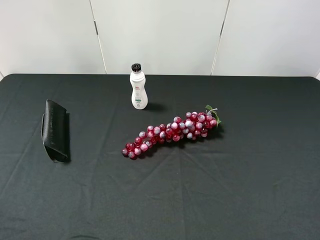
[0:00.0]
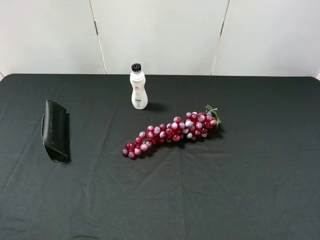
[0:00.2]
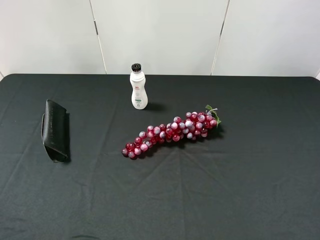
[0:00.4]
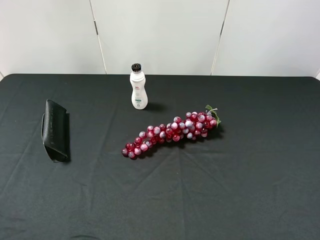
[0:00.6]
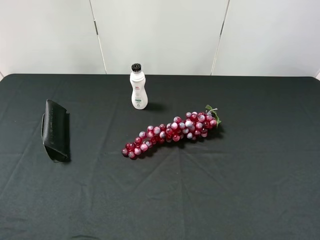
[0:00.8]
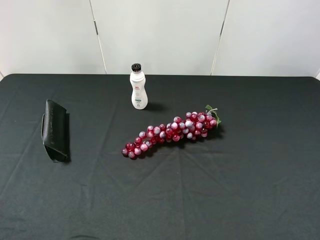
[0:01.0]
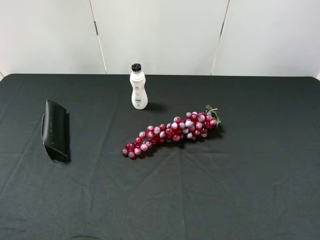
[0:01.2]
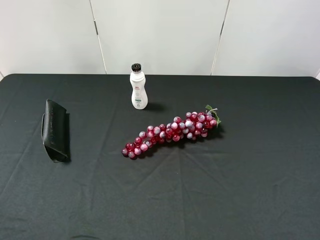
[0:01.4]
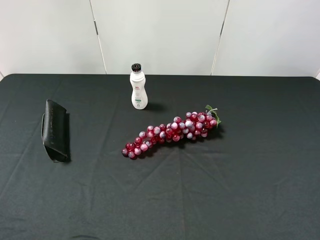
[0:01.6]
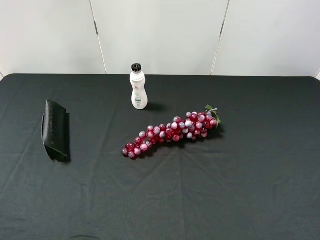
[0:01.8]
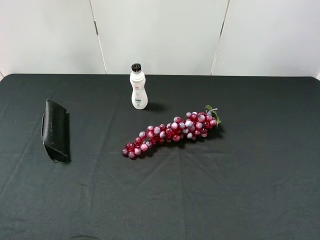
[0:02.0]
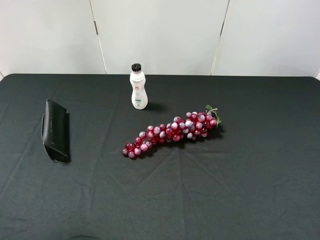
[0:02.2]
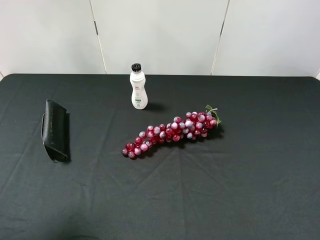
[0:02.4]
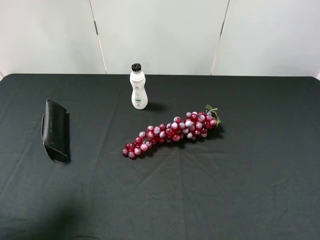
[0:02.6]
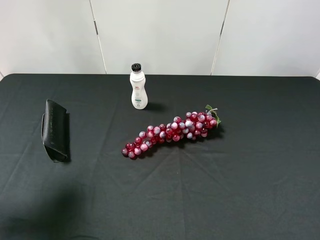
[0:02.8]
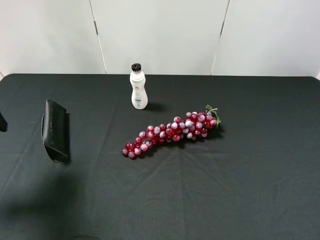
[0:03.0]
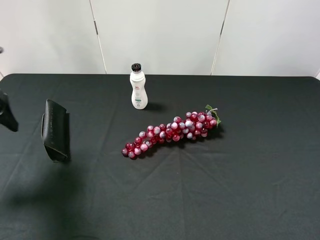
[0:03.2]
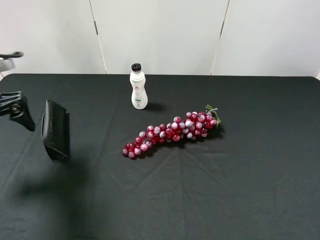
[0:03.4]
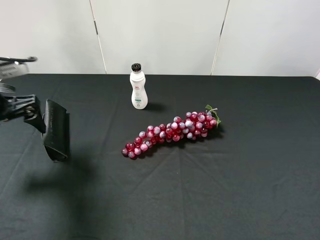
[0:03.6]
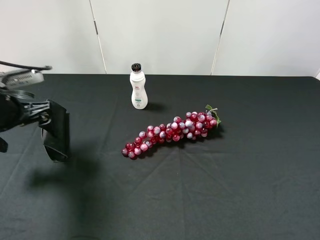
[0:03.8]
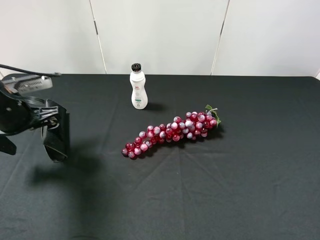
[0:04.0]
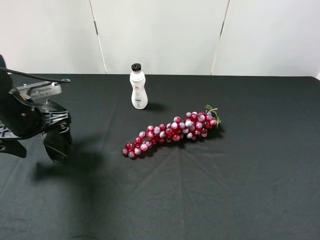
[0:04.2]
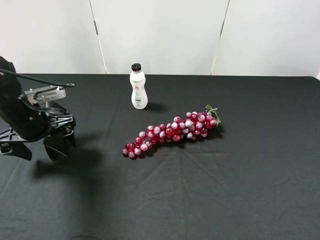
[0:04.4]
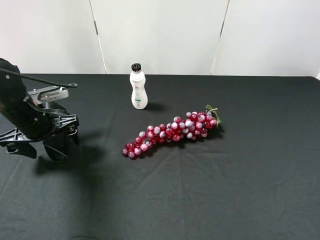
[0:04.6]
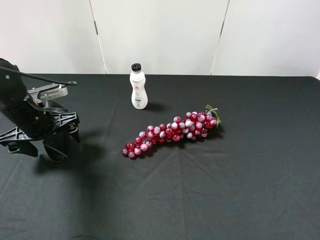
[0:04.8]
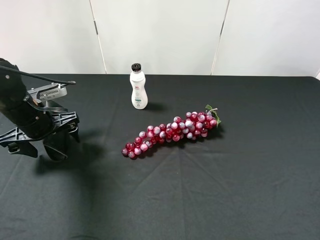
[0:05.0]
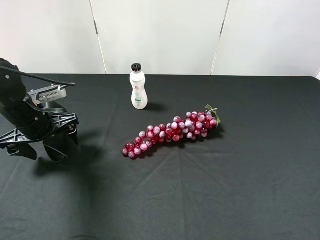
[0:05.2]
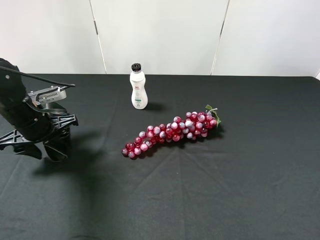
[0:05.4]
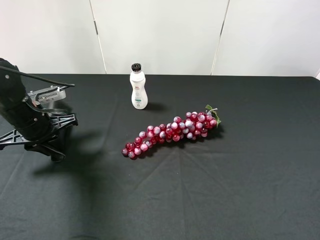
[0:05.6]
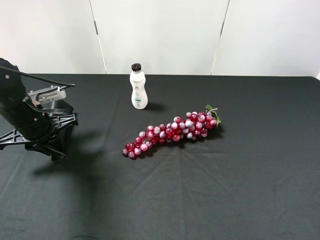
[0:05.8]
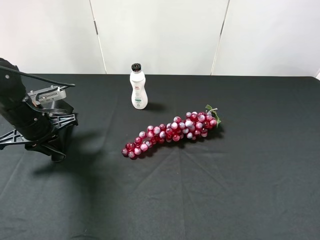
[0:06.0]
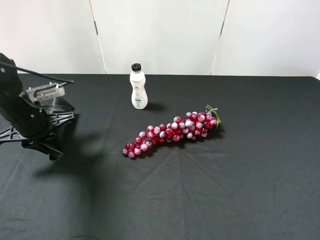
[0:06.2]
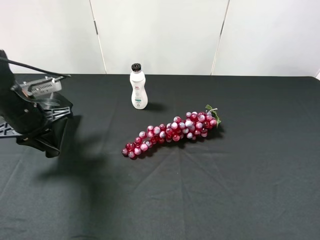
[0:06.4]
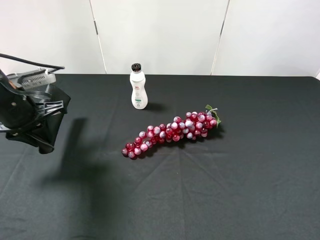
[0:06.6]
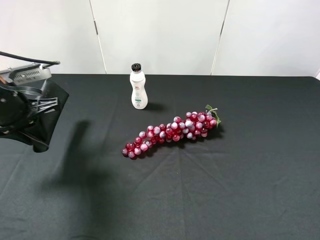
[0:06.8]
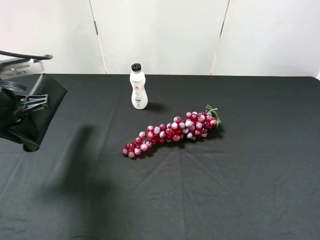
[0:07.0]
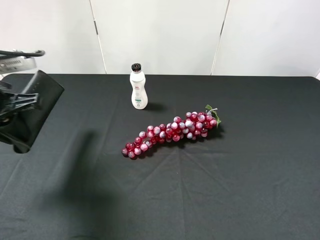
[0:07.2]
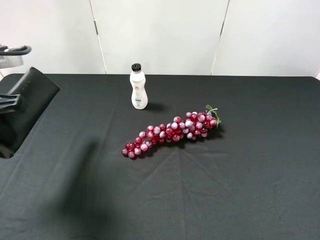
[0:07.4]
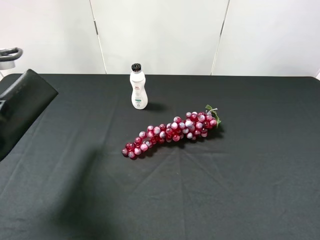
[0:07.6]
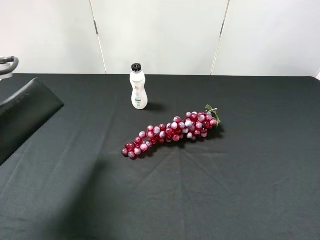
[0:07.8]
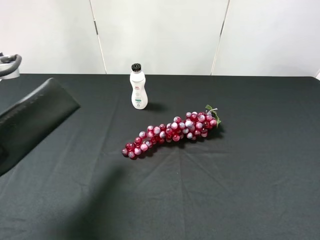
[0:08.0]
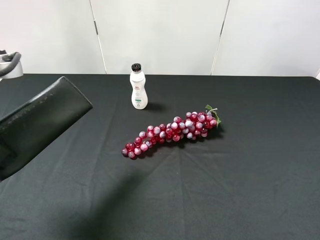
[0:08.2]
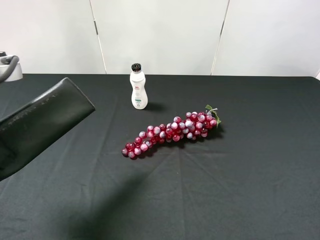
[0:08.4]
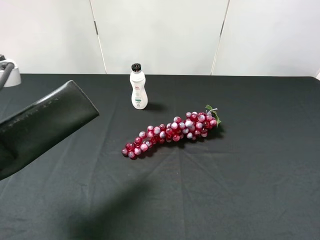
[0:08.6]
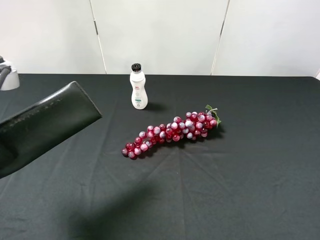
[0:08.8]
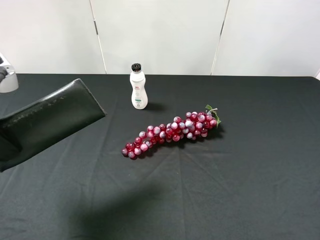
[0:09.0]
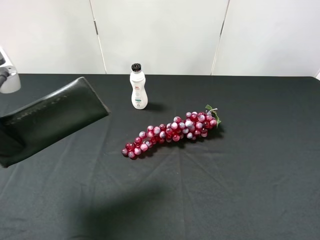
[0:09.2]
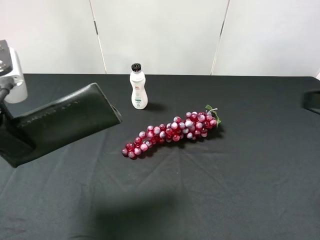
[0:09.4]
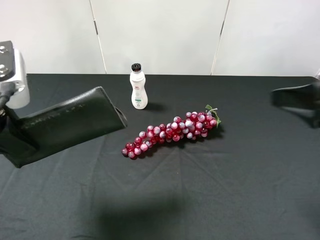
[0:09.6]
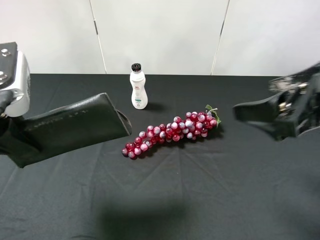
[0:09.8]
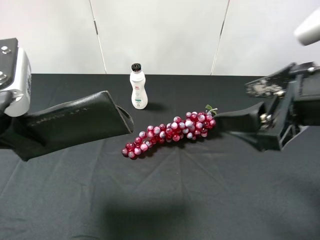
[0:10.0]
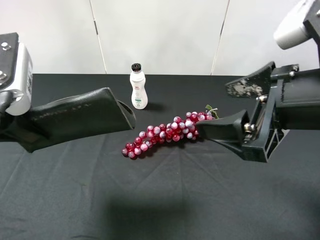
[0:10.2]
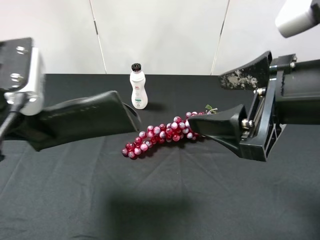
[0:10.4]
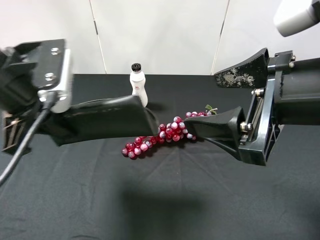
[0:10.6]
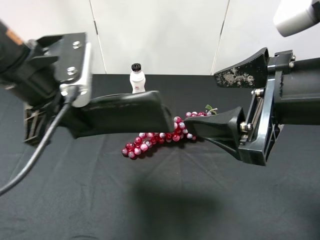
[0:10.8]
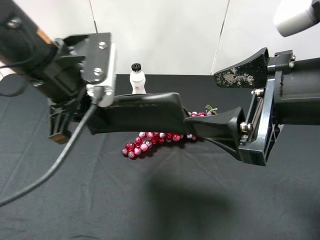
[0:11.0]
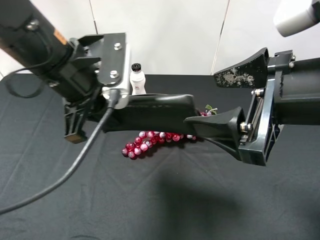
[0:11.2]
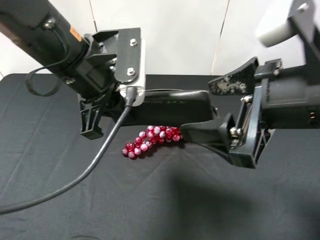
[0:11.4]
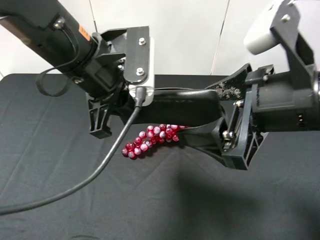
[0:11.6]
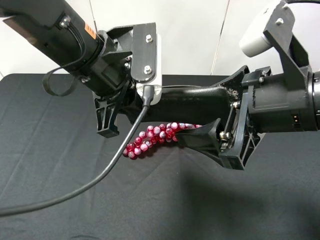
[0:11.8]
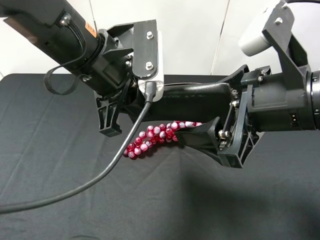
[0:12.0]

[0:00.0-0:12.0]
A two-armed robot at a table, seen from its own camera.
Task of the whole recording: use the left gripper to pick up the item and transfer it from the left gripper to the right gripper.
0:00.0 to 0:01.6: Both grippers stay about where they are.
0:01.6 to 0:03.0: The left gripper is displaced forward by some 20 cm.
0:03.0 to 0:04.4: The left gripper is displaced downward, to the right and forward by roughly 15 cm.
0:04.4 to 0:06.0: The left gripper closes up.
0:06.0 to 0:07.6: The left gripper goes about 20 cm upward and backward.
0:09.0 to 0:10.4: The left gripper changes place by about 5 cm. Meanwhile the right gripper goes some 15 cm to the left and forward.
0:10.4 to 0:12.0: The left gripper heads to the right, covering approximately 15 cm.

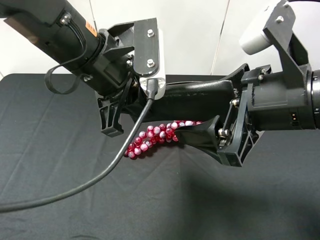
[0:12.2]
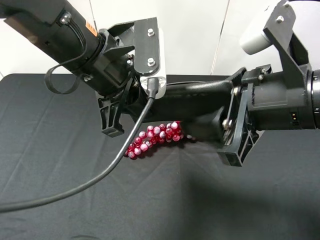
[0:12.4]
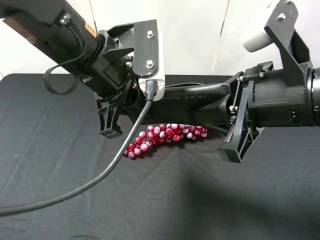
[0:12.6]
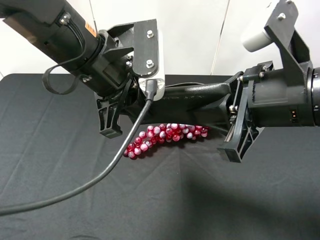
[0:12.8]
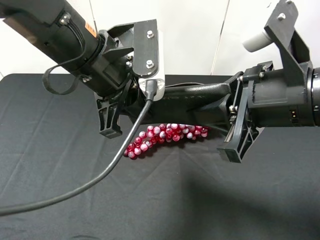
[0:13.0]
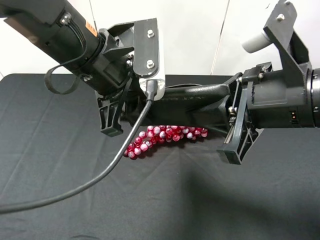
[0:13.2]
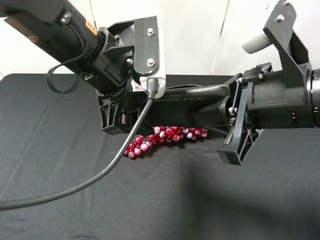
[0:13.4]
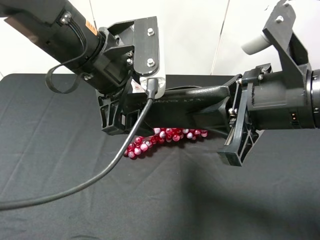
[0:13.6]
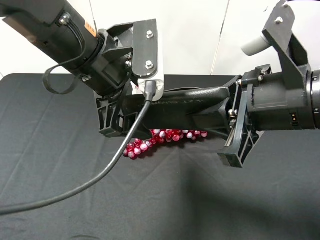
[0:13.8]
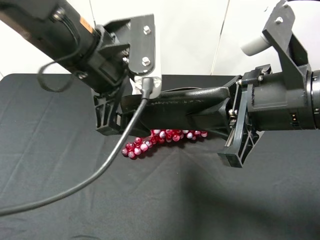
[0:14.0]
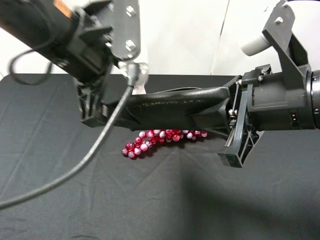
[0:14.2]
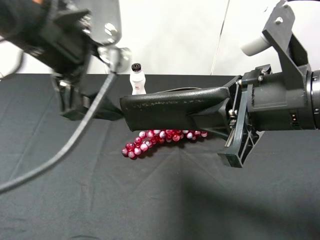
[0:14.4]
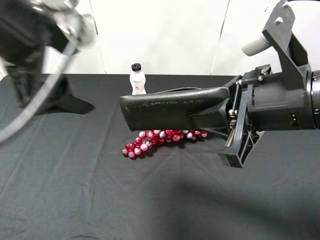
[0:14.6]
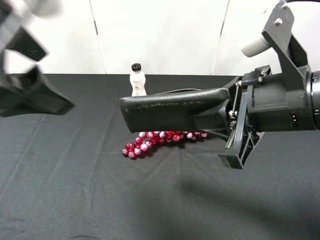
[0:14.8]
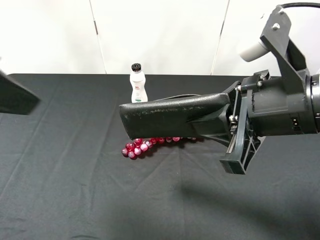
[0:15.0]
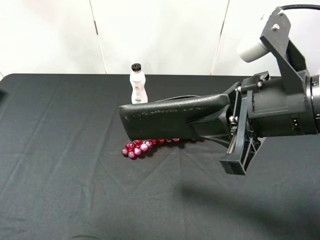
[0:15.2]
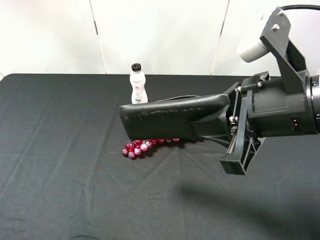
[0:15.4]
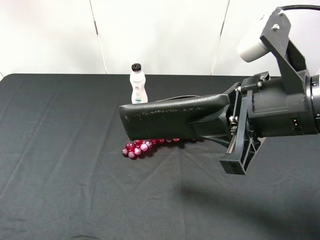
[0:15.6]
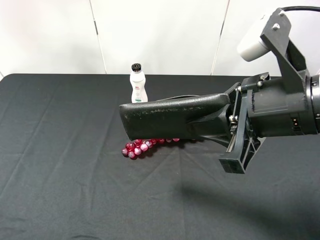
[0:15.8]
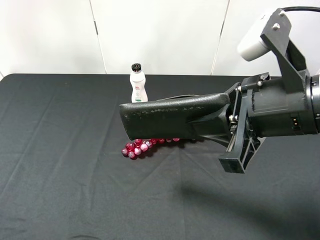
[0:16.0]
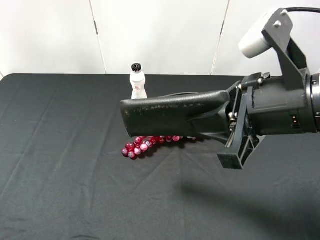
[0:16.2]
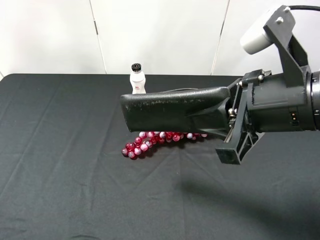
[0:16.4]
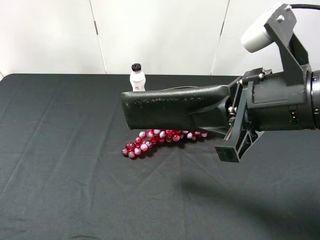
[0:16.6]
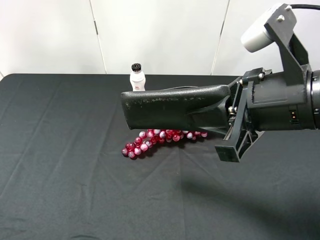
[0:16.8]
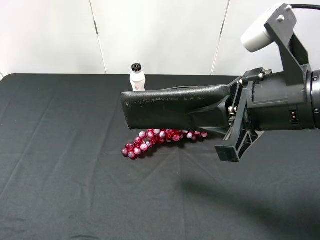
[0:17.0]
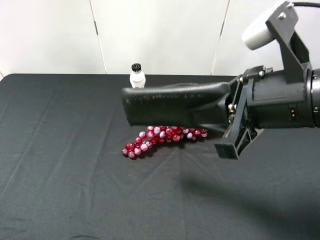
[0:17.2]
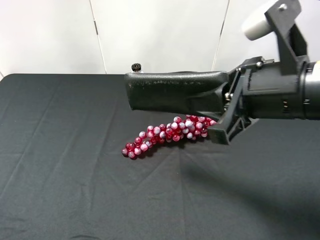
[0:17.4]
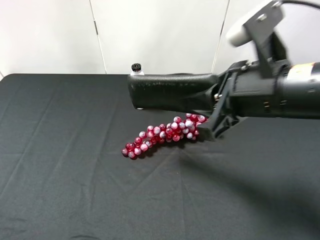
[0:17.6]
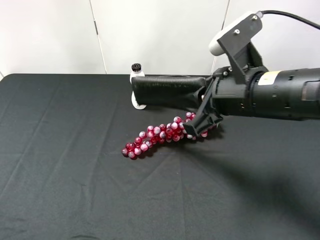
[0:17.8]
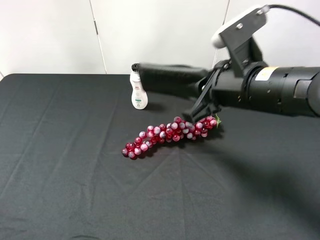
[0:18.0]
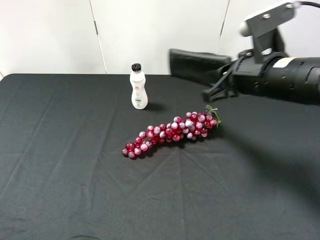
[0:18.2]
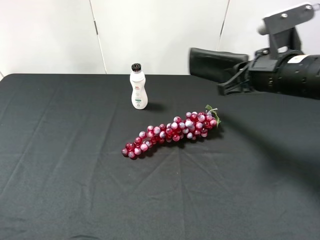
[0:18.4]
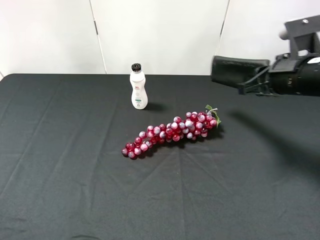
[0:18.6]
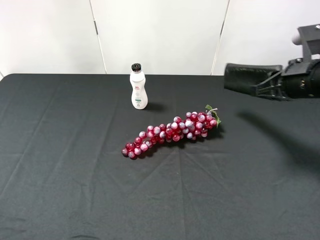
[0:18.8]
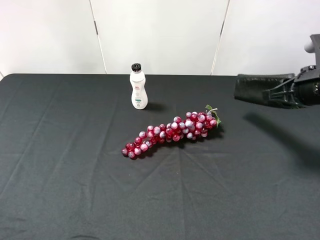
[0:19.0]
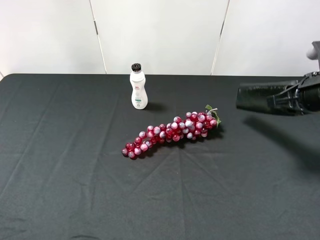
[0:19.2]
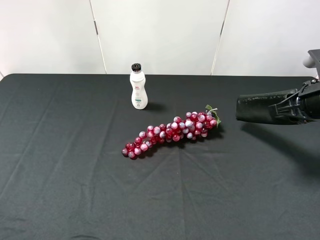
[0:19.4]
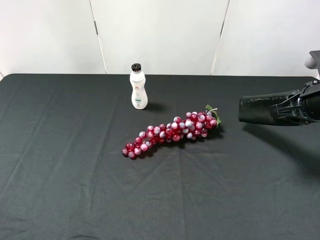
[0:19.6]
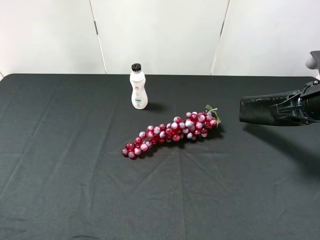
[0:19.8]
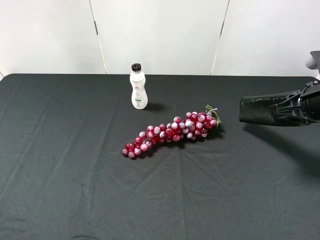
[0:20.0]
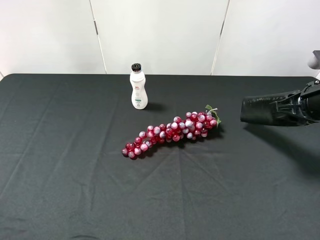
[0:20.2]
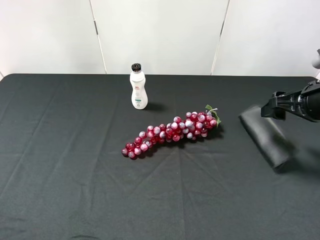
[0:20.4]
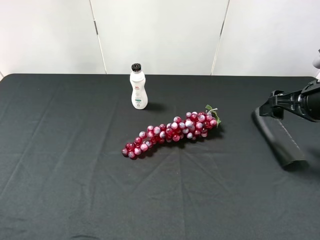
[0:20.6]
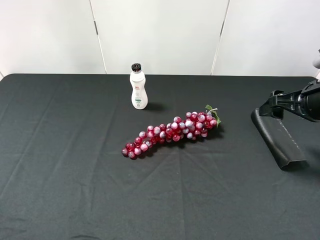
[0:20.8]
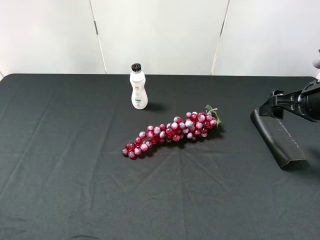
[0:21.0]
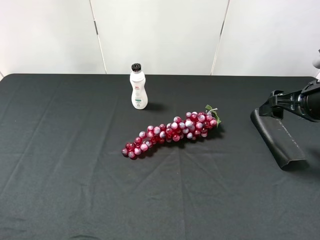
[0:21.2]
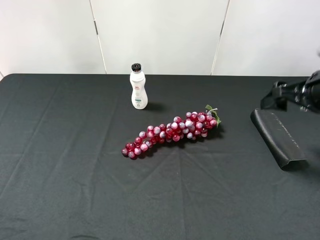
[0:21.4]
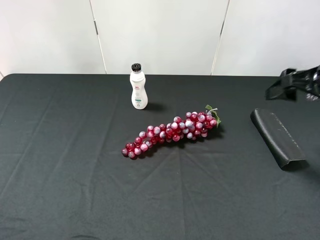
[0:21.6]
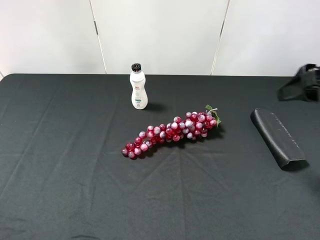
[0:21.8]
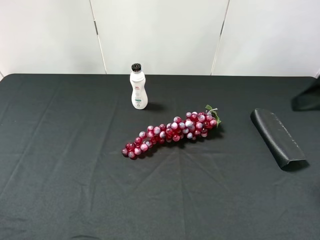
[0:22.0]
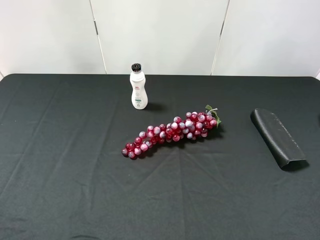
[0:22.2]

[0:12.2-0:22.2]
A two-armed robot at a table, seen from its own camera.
Task of the whole recording: use the left gripper to pick up the item and transfer it from the left gripper to the right gripper.
0:12.2 to 0:13.6: The right gripper closes up. The left gripper opens its fingers.
0:13.6 to 0:15.0: The left gripper goes some 20 cm to the left, upward and backward.
0:15.0 to 0:16.4: The left gripper goes approximately 20 cm downward, backward and to the left.
0:16.4 to 0:18.0: The right gripper travels forward by about 5 cm.
0:18.0 to 0:19.4: The right gripper is displaced to the right by some 15 cm.
0:19.4 to 0:20.8: The right gripper opens up.
0:20.8 to 0:22.2: The right gripper moves backward and upward, some 20 cm.
